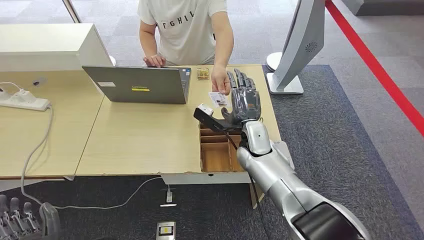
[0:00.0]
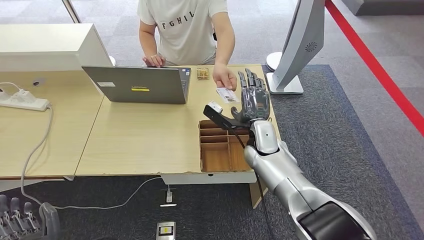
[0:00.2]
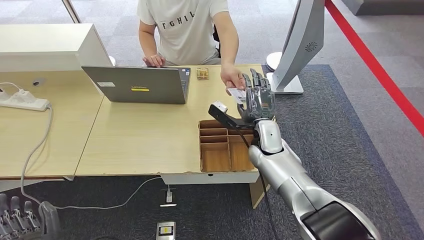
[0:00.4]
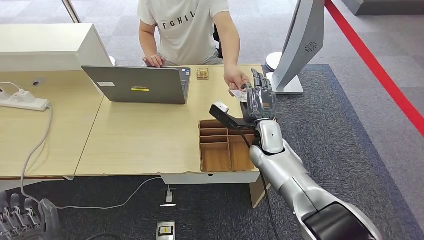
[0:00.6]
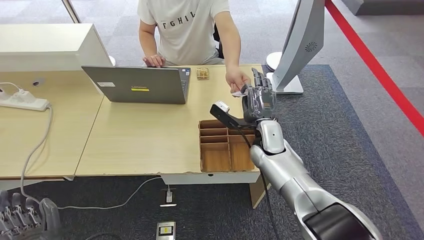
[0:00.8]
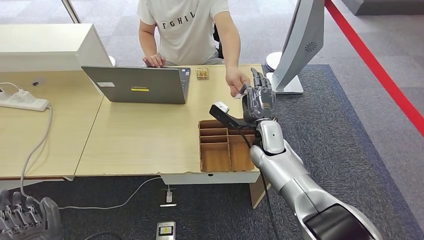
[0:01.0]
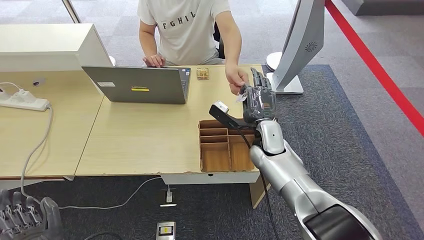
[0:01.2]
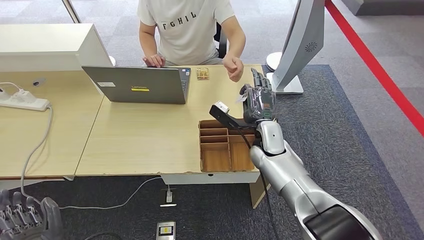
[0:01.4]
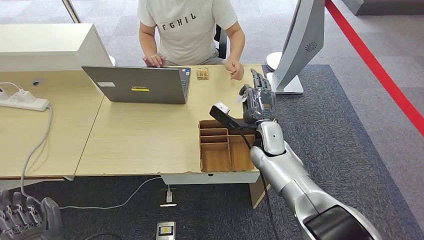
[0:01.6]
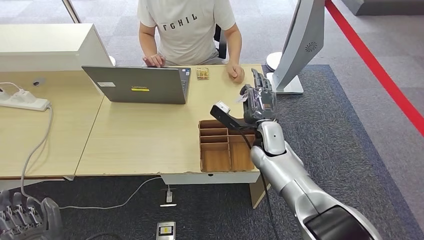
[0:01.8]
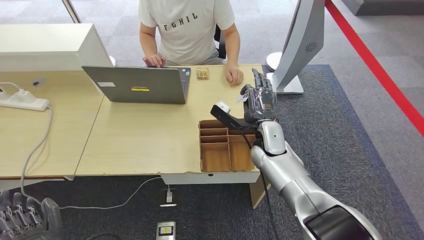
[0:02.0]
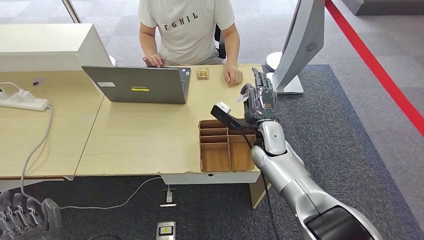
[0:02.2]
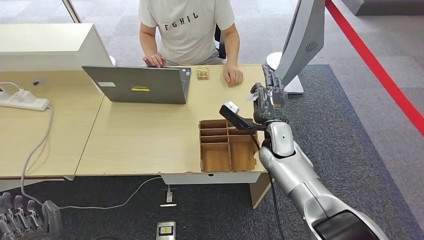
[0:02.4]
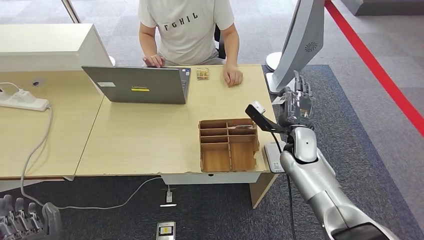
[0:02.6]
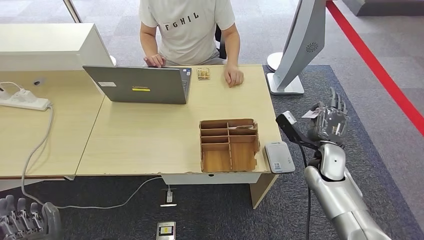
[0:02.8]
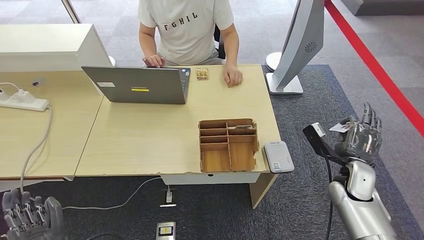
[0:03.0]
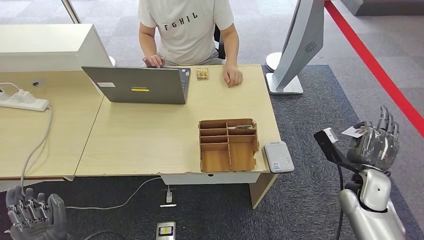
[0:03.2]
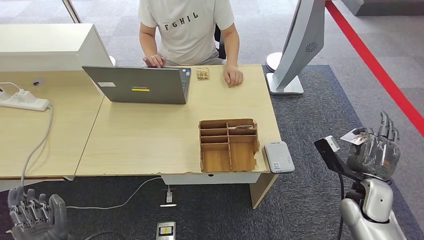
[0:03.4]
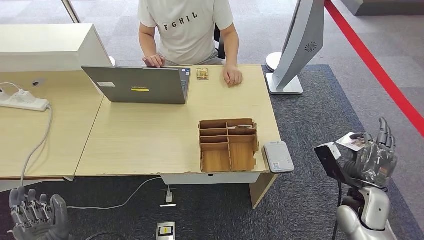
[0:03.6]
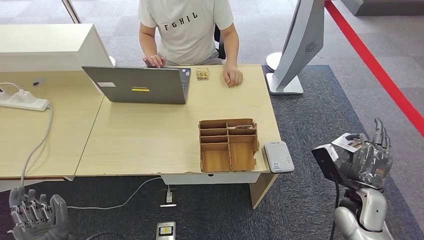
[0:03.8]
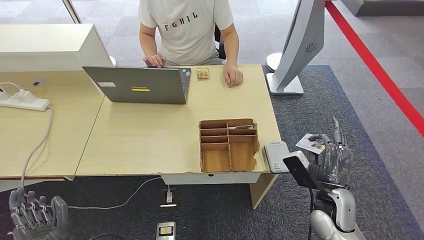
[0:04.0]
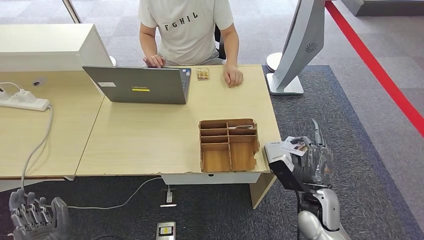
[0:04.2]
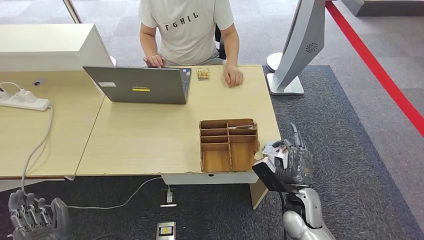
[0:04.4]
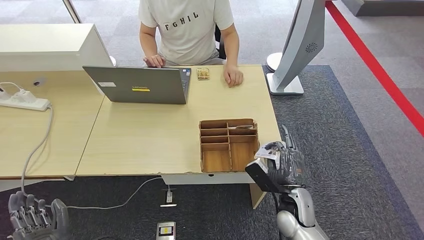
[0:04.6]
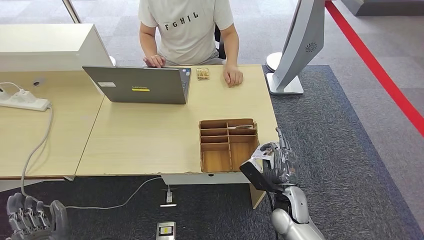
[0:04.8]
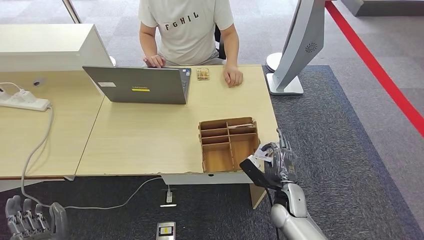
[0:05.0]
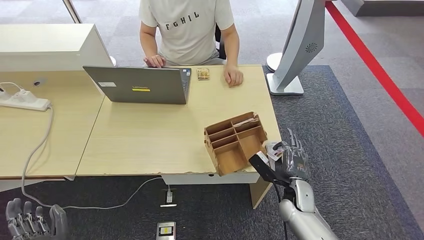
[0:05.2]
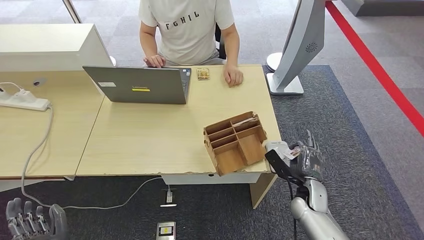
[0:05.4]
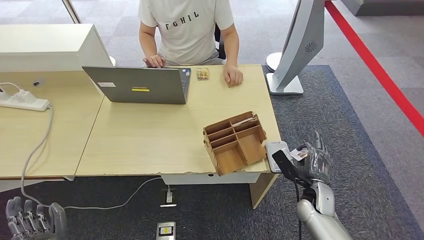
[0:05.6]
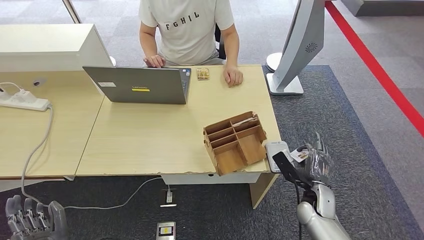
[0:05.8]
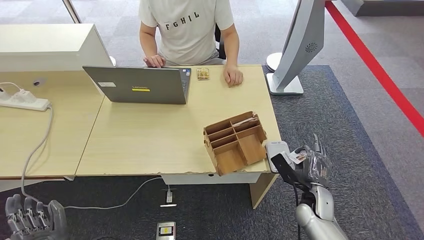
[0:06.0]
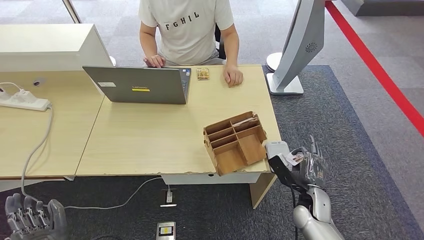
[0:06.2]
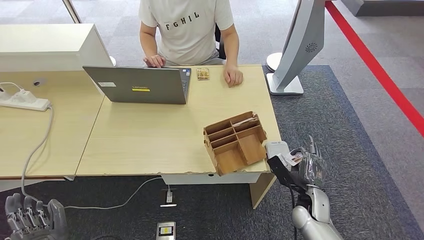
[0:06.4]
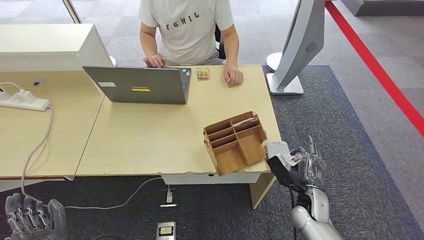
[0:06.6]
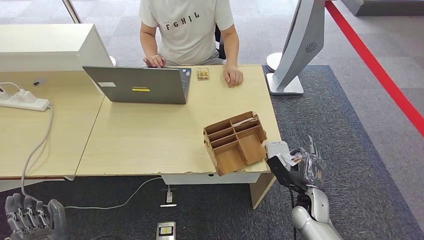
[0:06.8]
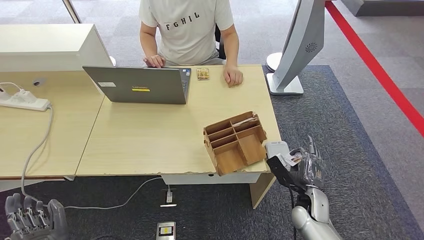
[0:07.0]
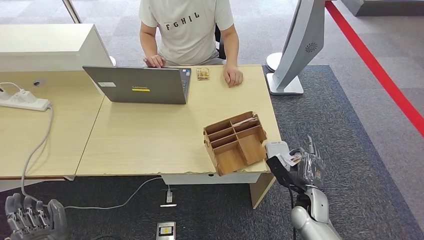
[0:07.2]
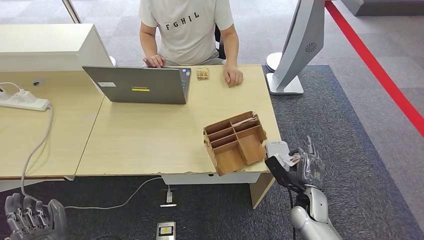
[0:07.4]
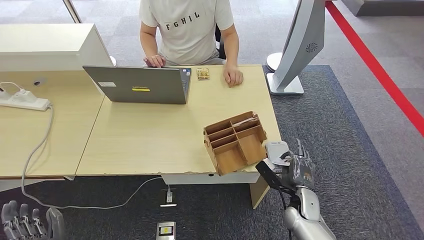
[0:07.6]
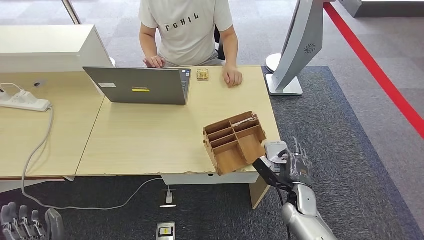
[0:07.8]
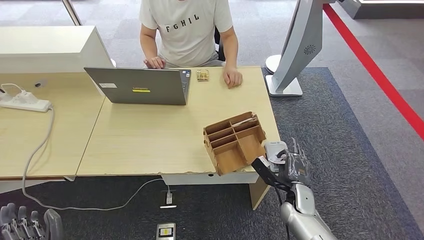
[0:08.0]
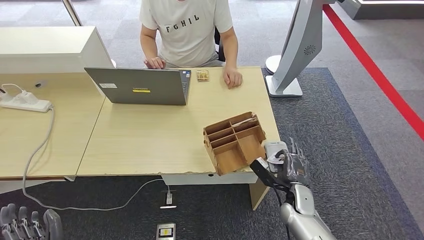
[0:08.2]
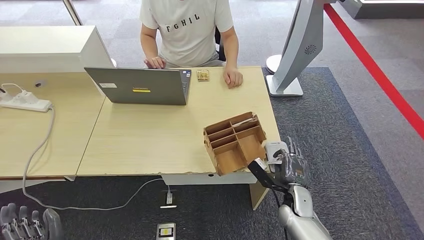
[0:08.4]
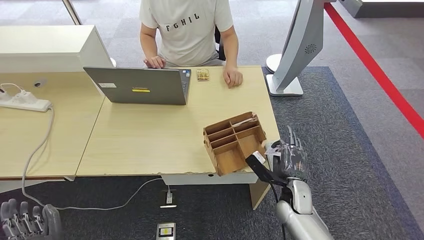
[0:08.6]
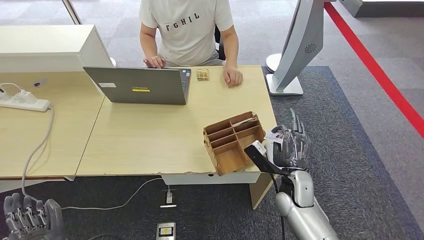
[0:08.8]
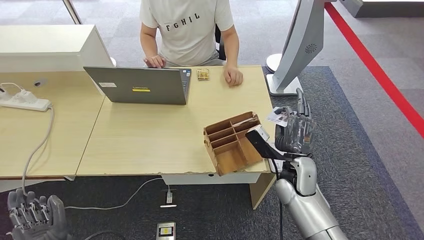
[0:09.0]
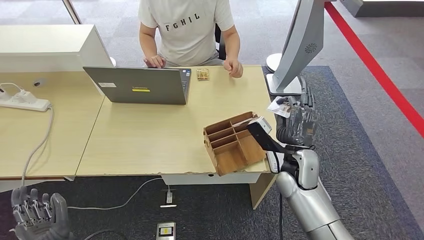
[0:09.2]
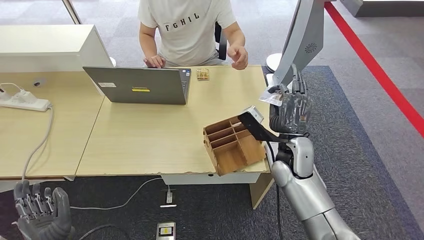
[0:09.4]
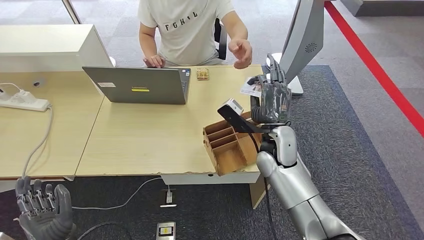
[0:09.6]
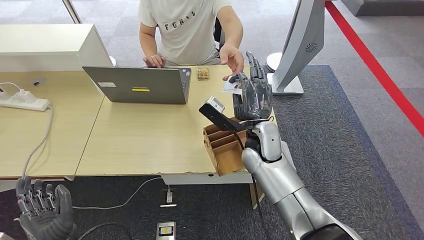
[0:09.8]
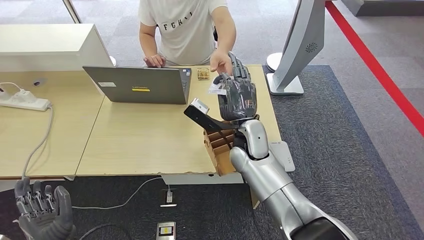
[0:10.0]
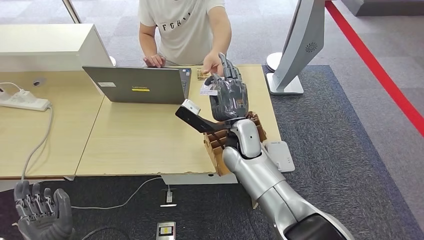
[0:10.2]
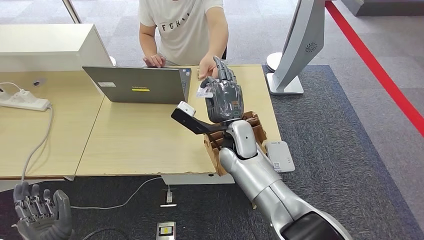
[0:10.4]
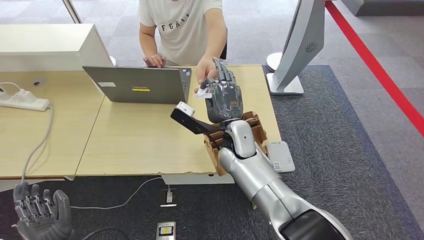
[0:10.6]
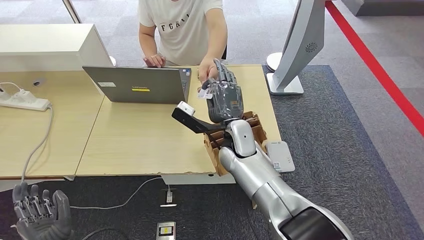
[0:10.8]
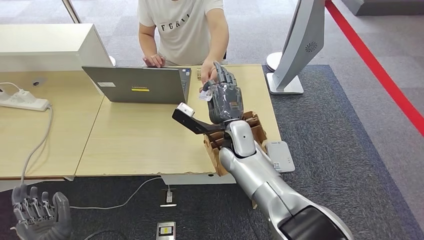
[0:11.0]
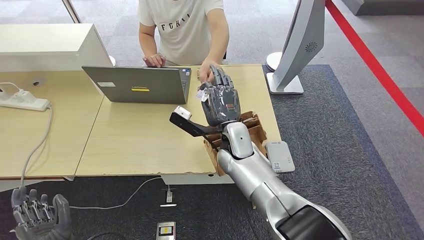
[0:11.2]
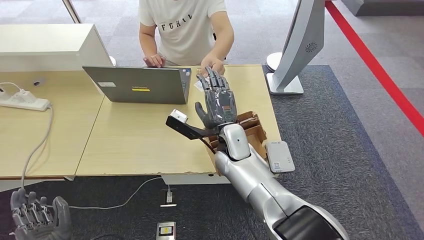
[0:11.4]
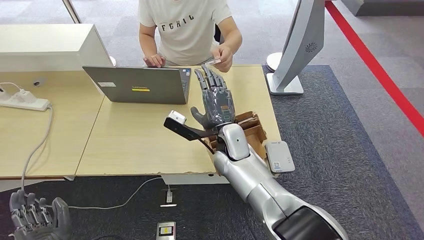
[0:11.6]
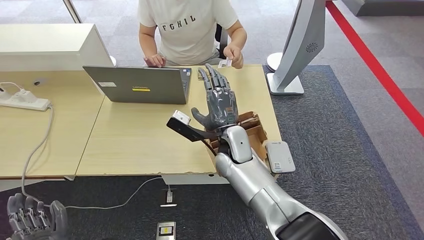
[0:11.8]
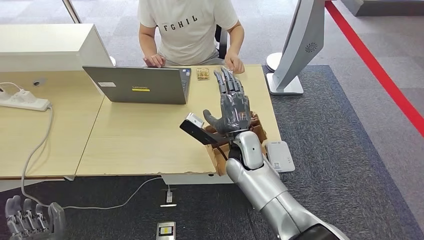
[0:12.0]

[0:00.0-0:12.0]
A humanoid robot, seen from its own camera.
Step, 0:00.0 to 0:01.8: Take the ID card from the person's hand.
Step, 0:02.0 to 0:09.0: Place the ID card on the card reader.
Step, 0:09.2 to 0:12.0: Hand the ID card to the person.
0:01.6 to 0:03.0: The right hand heads to the right and backward, covering about 25 cm.
0:03.0 to 0:04.4: The right hand goes approximately 15 cm to the left and backward.
0:04.4 to 0:06.0: The right hand heads to the right, covering about 5 cm.
0:06.0 to 0:07.6: The hands stay close to where they were, moving slightly.
0:07.6 to 0:09.0: The right hand heads upward and to the left, covering about 15 cm.
0:09.0 to 0:10.4: The right hand shifts roughly 20 cm to the left, upward and forward.
0:10.4 to 0:12.0: The right hand ends up roughly 5 cm from where it was.

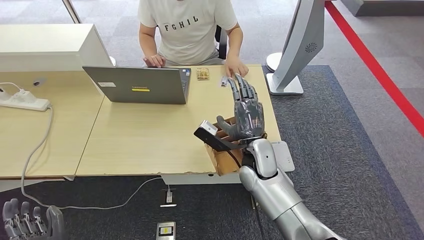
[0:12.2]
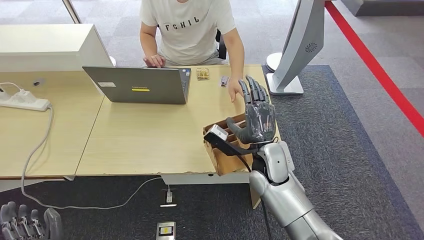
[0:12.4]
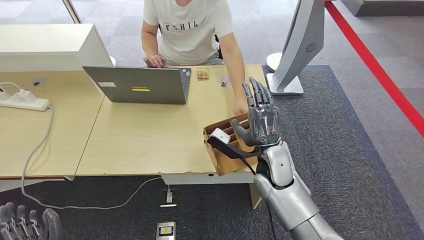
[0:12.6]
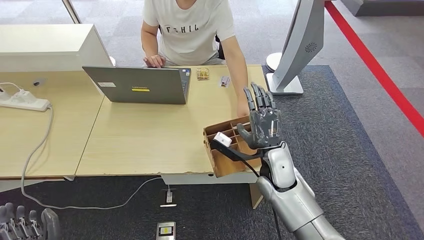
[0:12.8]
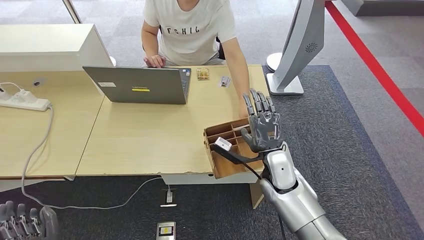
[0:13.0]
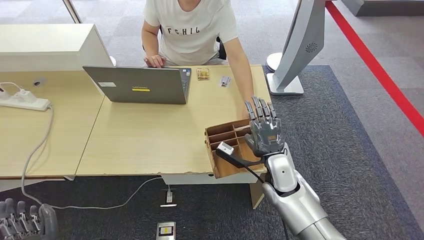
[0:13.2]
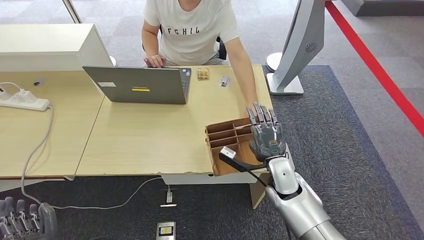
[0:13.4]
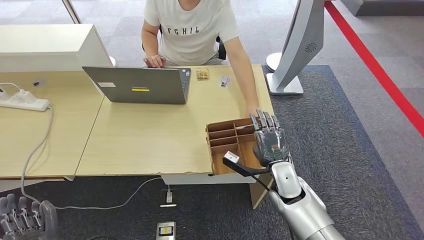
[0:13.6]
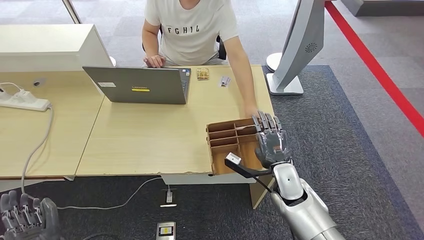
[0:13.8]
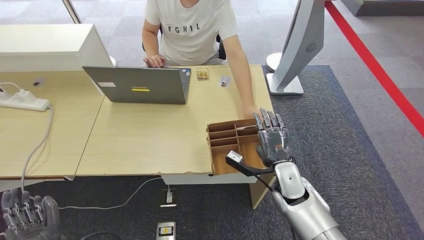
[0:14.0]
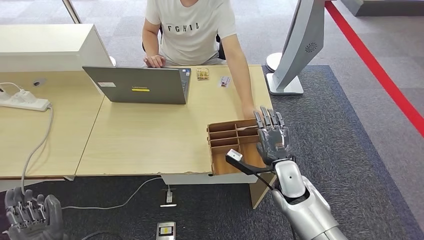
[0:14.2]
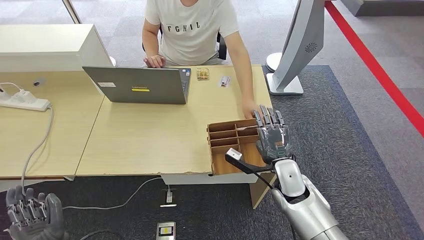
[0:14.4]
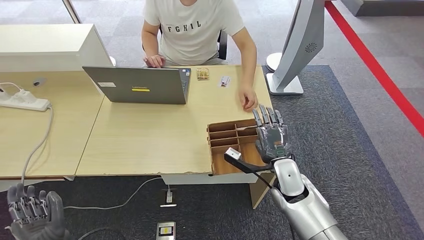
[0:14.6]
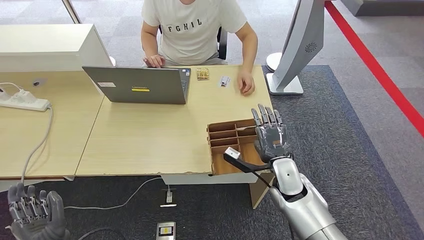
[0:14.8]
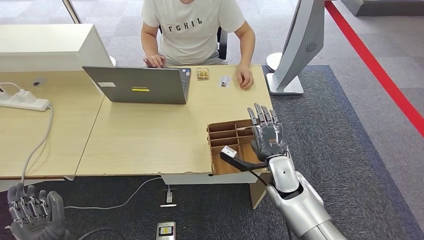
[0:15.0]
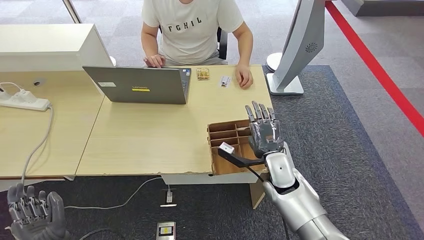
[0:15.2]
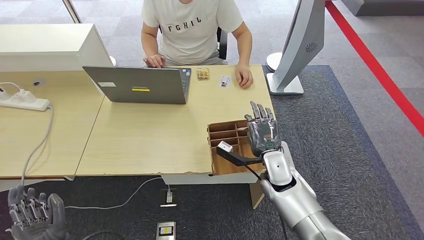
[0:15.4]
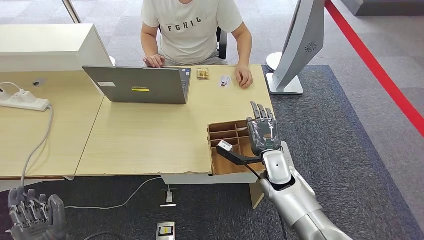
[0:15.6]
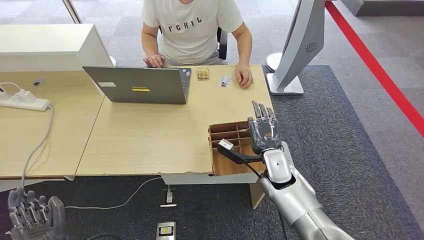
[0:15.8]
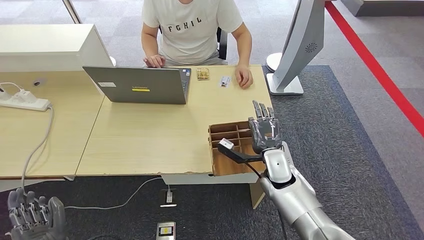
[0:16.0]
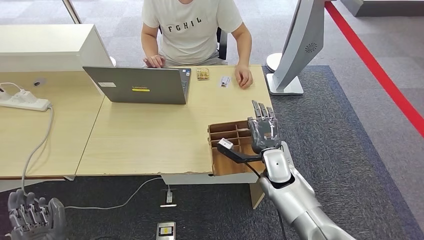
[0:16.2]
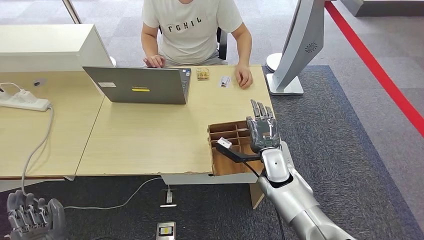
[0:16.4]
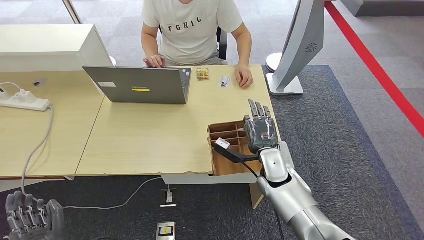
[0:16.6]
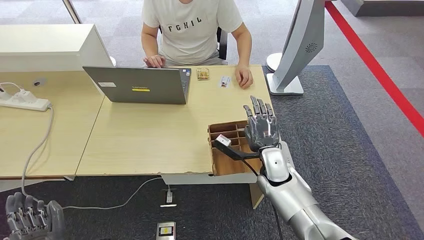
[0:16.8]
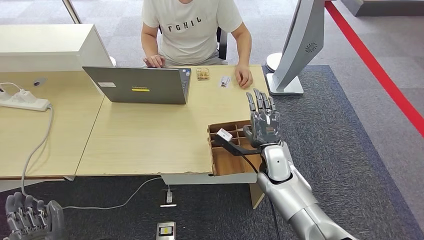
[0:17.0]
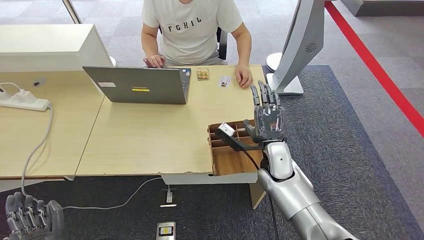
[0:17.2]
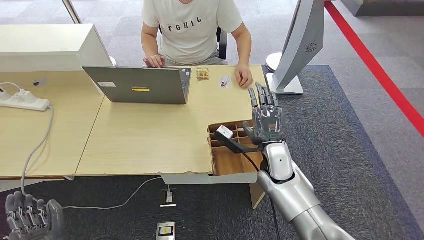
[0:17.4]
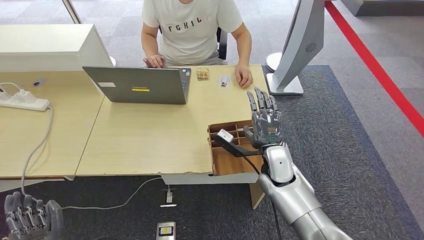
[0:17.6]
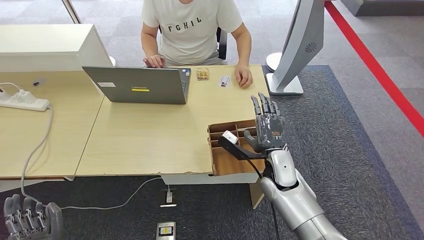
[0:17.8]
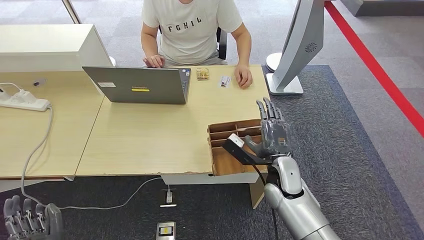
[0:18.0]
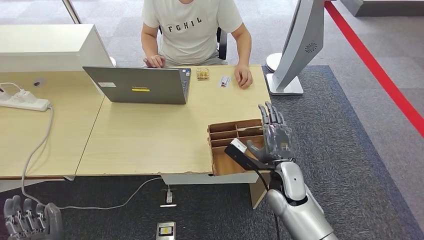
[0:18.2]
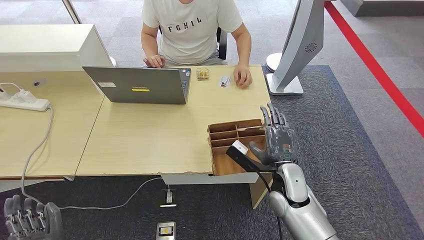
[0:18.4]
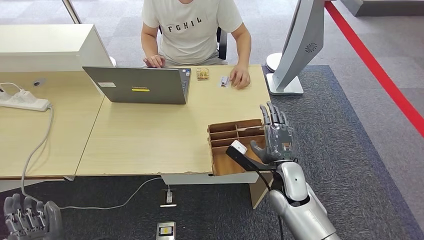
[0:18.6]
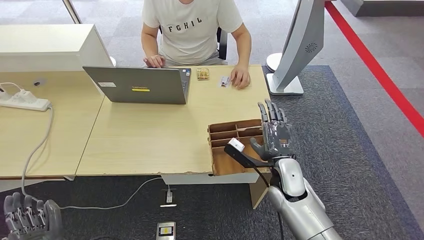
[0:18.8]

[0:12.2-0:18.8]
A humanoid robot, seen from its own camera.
0:12.2 to 0:13.8: The right hand shifts approximately 10 cm to the right and downward.
0:13.8 to 0:15.4: The hands stay close to where they were, moving slightly.
0:15.4 to 0:17.2: There are only small adjustments of the hands.
0:17.2 to 0:18.8: The right hand shifts by roughly 5 cm.
